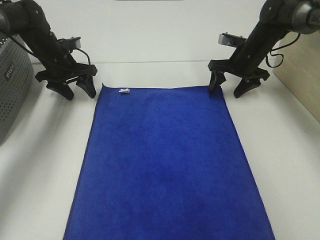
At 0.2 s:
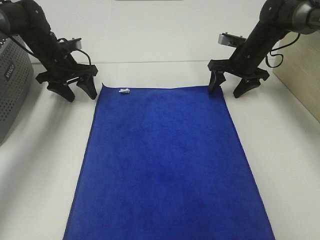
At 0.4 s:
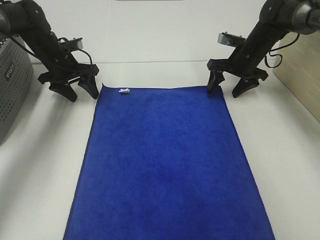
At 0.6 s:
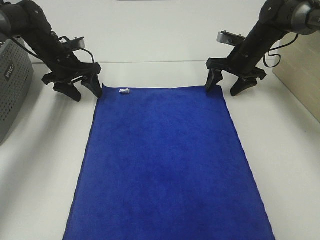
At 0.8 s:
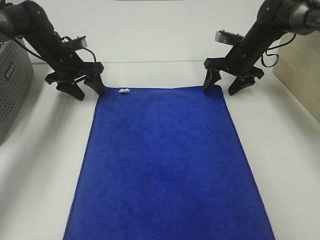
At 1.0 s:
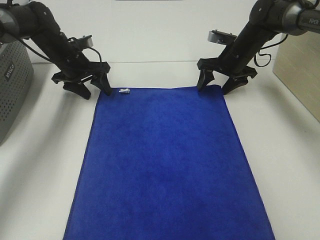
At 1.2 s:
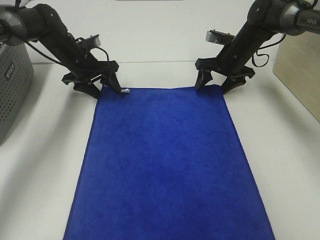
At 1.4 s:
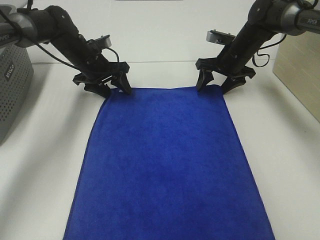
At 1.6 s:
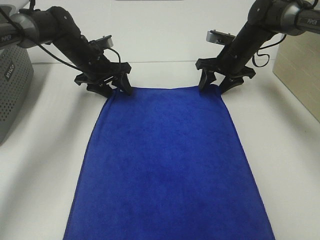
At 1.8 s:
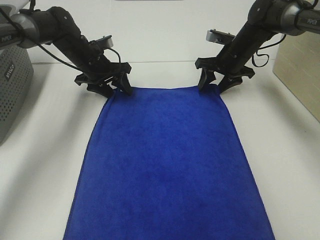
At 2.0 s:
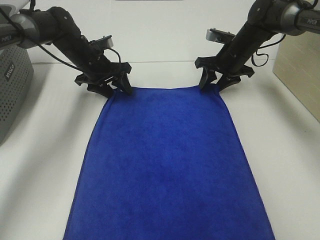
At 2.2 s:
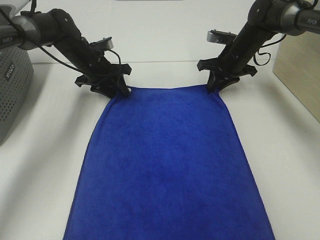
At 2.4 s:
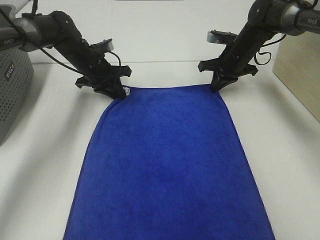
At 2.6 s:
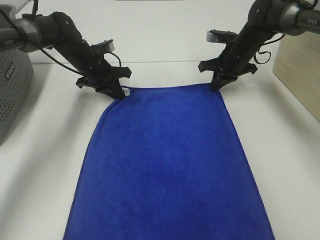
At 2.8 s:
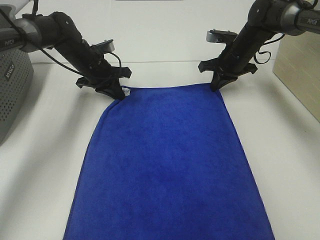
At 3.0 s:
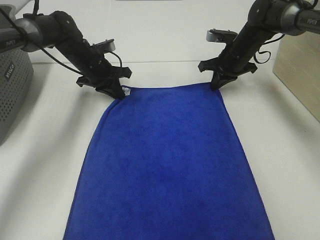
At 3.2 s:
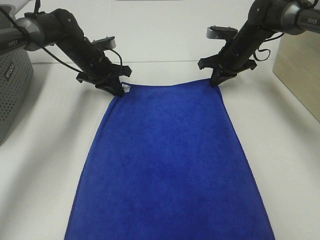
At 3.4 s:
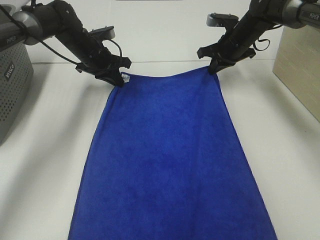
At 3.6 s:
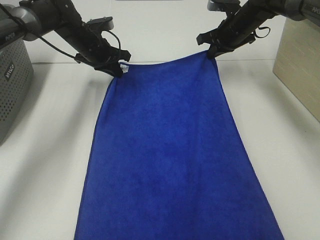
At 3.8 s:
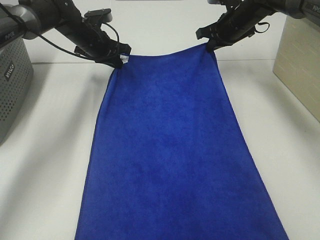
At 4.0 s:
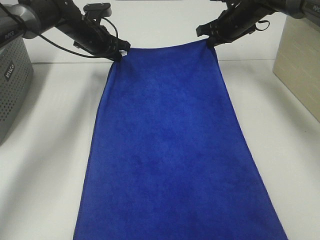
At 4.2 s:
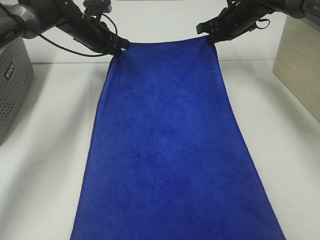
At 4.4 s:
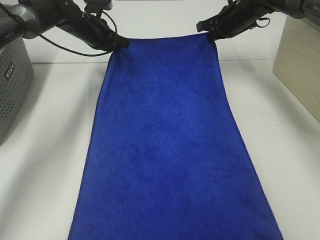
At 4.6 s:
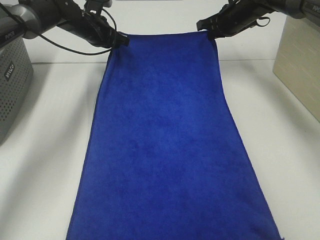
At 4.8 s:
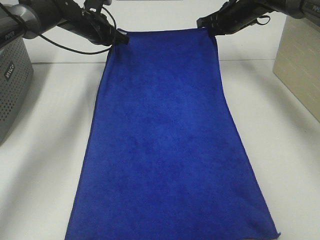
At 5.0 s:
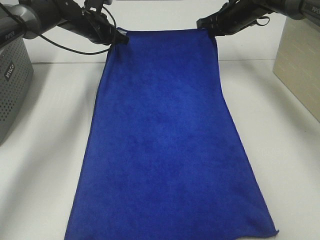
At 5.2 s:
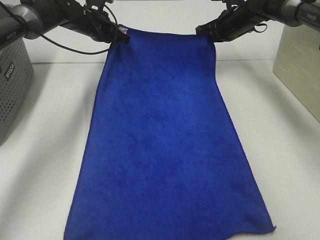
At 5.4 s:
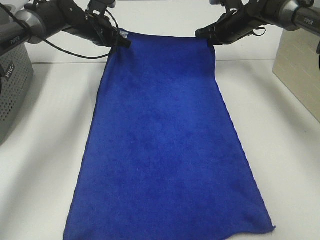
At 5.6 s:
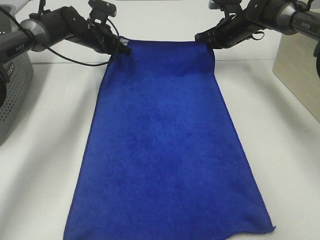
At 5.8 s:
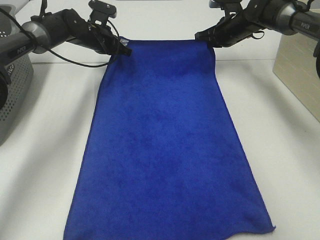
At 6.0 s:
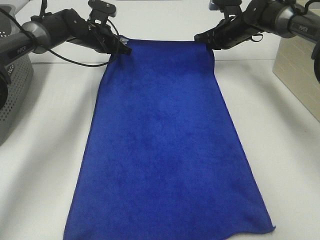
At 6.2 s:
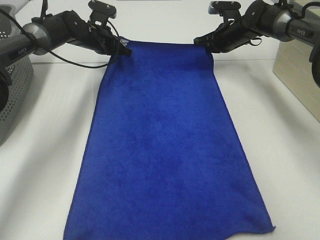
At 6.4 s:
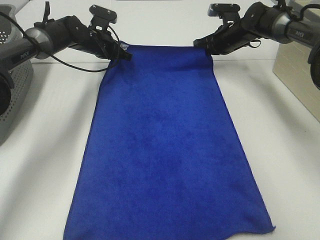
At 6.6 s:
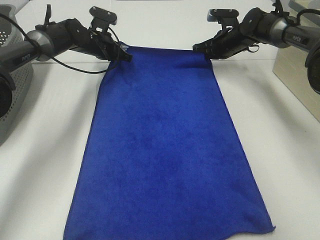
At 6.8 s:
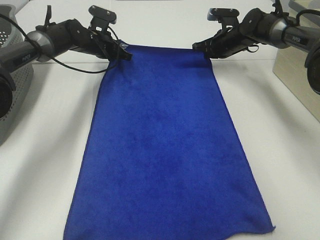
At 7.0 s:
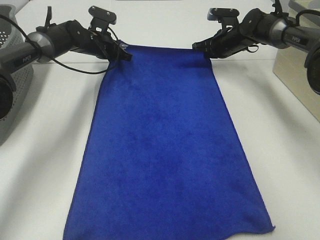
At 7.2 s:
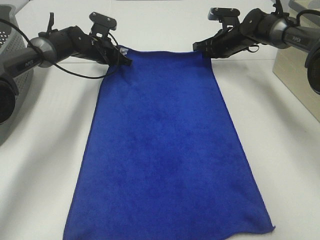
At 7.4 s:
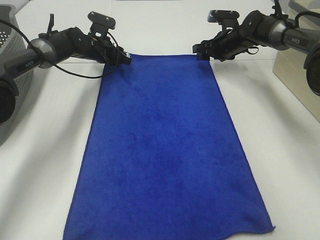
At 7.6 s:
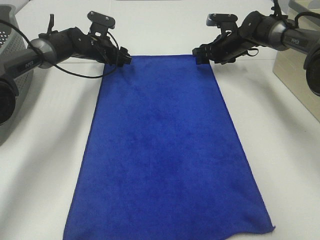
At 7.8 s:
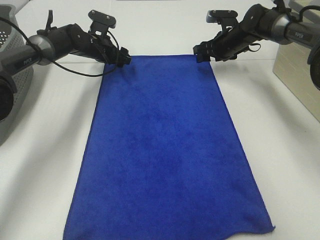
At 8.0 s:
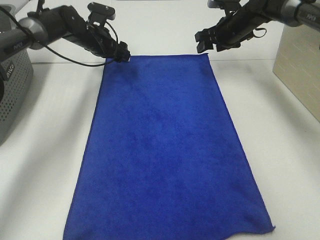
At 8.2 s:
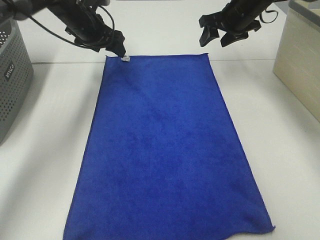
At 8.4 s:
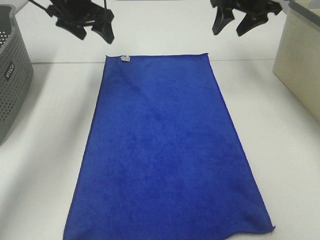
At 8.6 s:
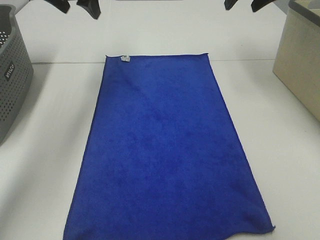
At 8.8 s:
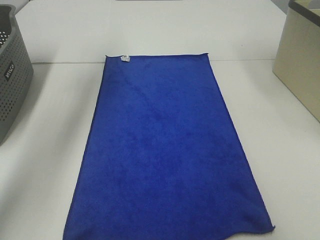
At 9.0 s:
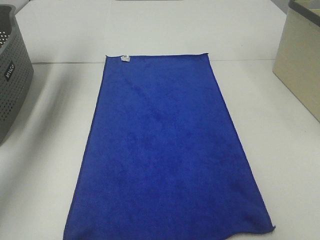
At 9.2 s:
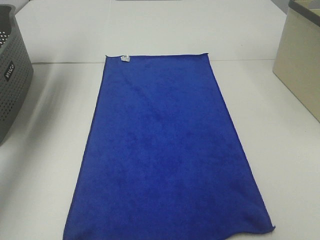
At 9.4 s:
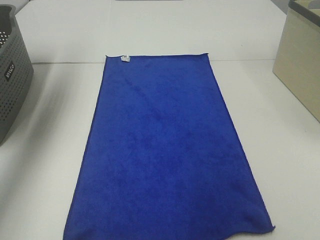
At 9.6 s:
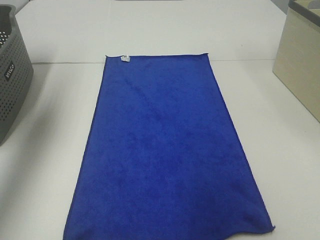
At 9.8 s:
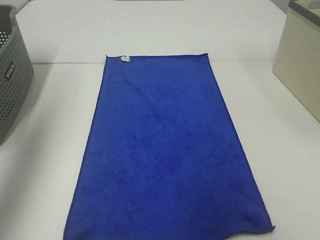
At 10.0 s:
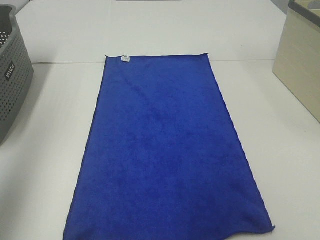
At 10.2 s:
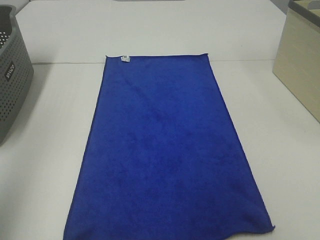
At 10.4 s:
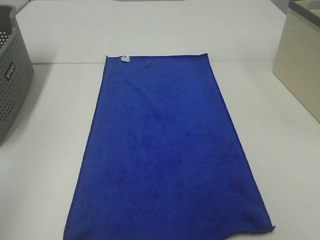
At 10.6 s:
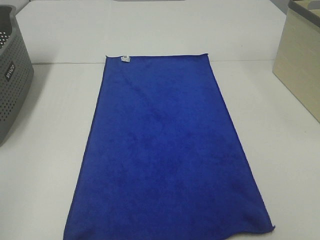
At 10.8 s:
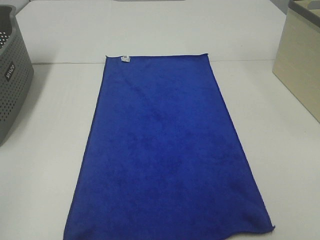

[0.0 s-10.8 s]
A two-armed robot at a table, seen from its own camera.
Task of the whole recording: Remove the towel and place it.
0.0 to 1.6 s: The left gripper moves to the right, roughly 5 cm.
1.6 to 3.0 s: The right gripper closes its fingers; the left gripper closes.
3.0 to 4.6 s: The right gripper moves upward, approximately 5 cm, while the left gripper heads upward and forward, covering about 10 cm.
4.6 to 6.2 s: The right gripper goes approximately 5 cm downward.
6.2 to 7.8 s: The left gripper opens. Meanwhile the right gripper opens up.
7.8 to 9.2 s: The right gripper is displaced upward and backward by about 35 cm; the left gripper travels upward, to the left and backward by about 35 cm.
9.2 to 10.8 s: The left gripper goes approximately 40 cm backward.

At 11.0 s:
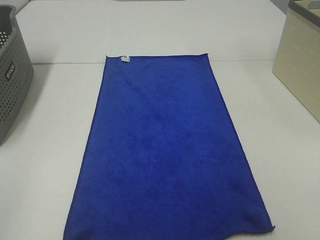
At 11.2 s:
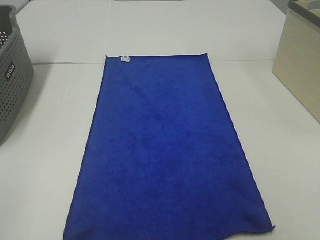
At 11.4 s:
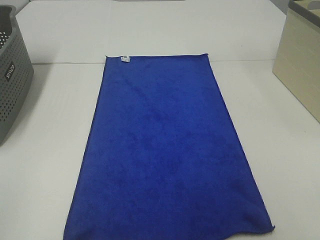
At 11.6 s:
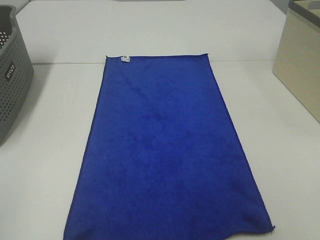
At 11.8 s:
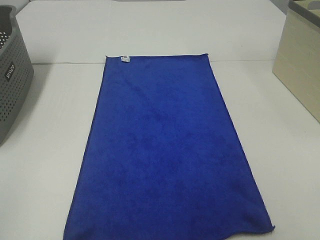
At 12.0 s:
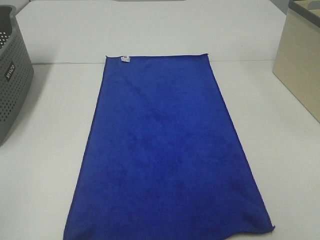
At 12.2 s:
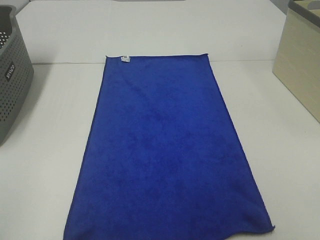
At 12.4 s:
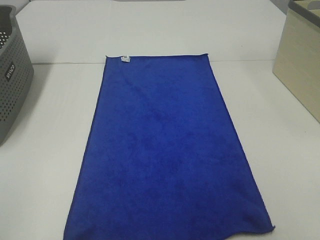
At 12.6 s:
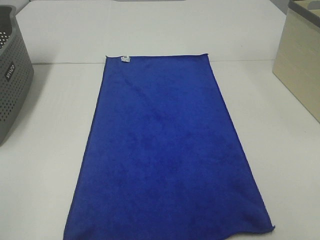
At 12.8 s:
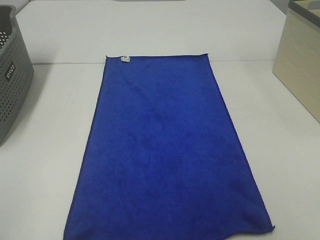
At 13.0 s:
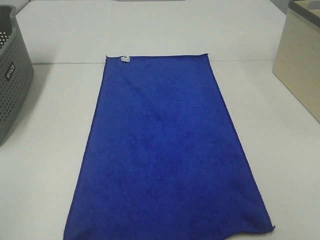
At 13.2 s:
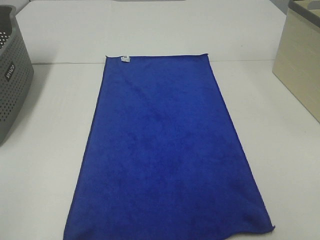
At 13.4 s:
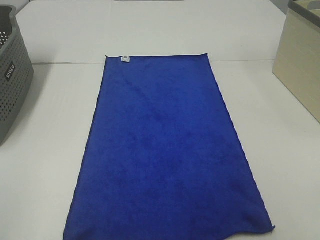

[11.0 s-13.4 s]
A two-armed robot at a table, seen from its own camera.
Task of the whole recording: Remove the towel and place it.
12.2 to 13.4 s: Neither gripper changes place.

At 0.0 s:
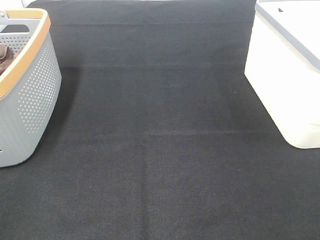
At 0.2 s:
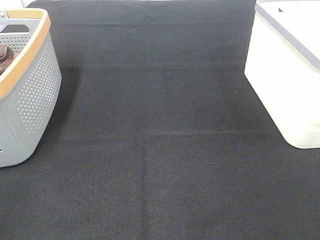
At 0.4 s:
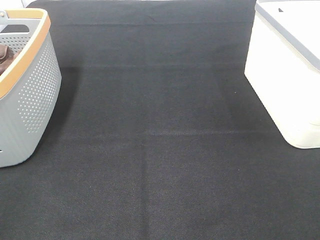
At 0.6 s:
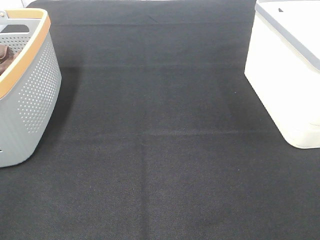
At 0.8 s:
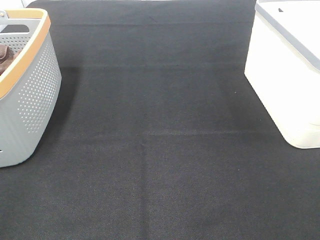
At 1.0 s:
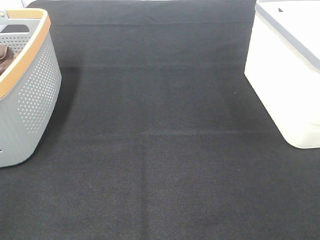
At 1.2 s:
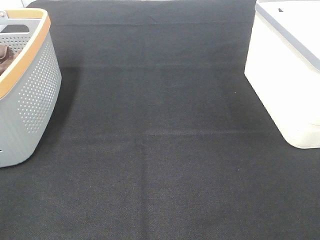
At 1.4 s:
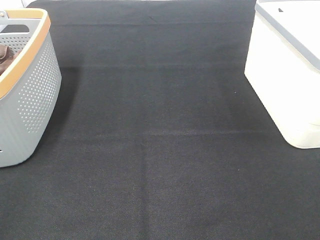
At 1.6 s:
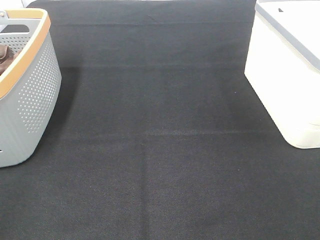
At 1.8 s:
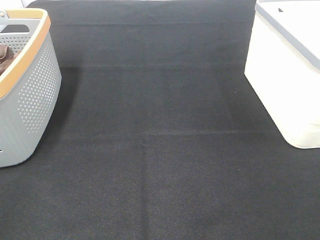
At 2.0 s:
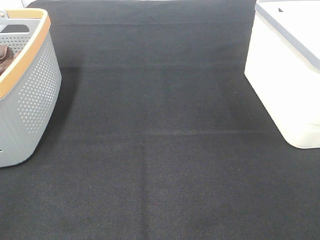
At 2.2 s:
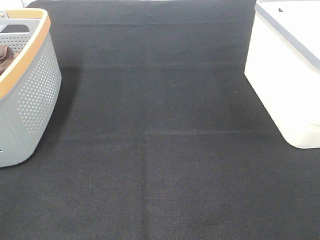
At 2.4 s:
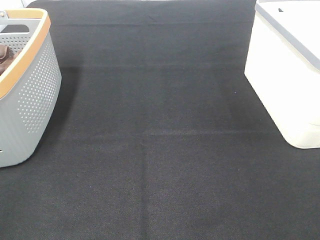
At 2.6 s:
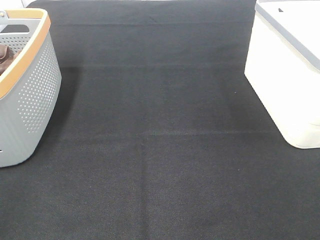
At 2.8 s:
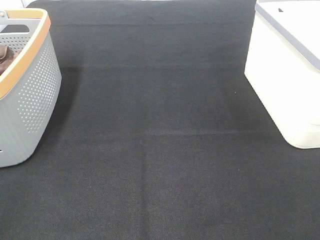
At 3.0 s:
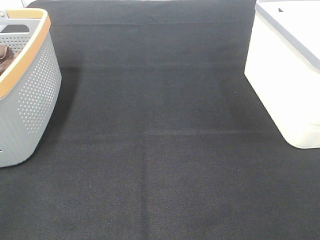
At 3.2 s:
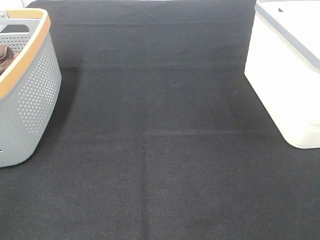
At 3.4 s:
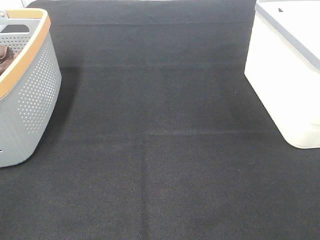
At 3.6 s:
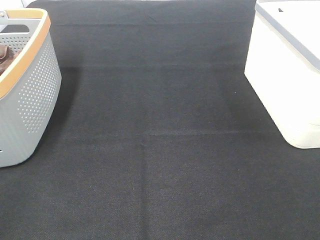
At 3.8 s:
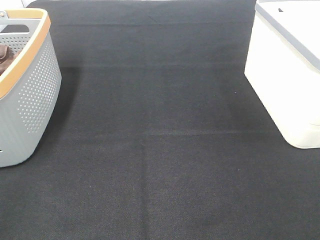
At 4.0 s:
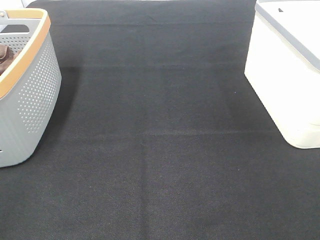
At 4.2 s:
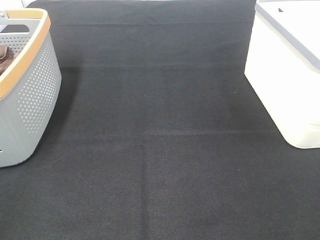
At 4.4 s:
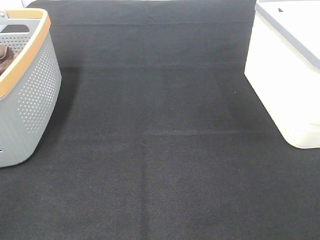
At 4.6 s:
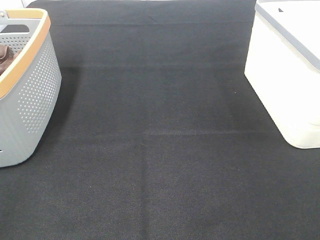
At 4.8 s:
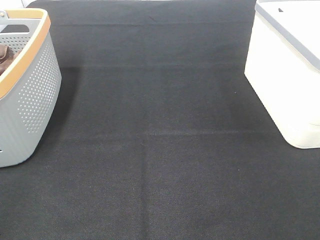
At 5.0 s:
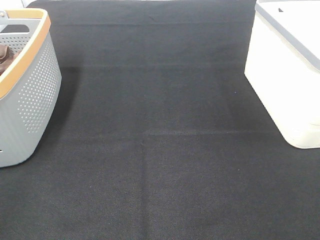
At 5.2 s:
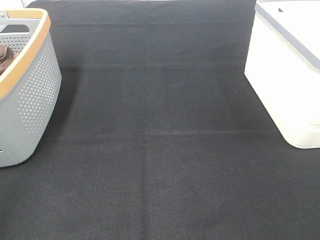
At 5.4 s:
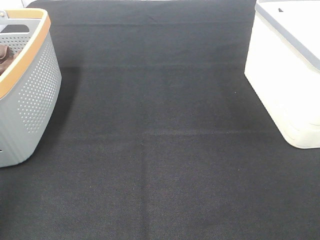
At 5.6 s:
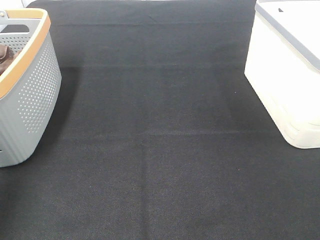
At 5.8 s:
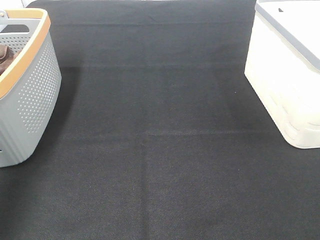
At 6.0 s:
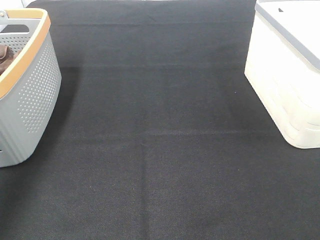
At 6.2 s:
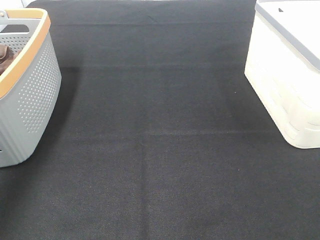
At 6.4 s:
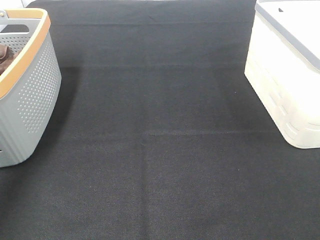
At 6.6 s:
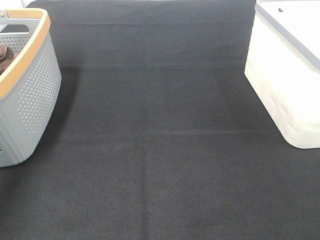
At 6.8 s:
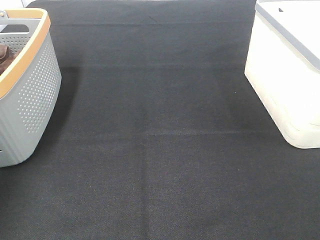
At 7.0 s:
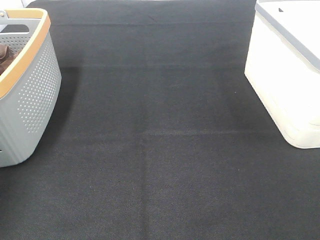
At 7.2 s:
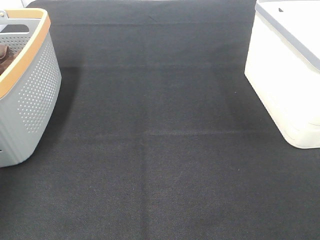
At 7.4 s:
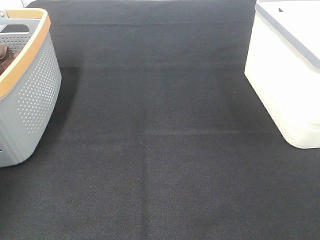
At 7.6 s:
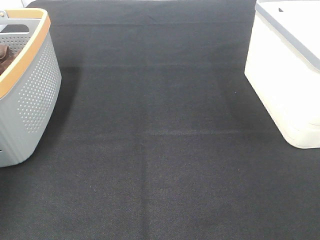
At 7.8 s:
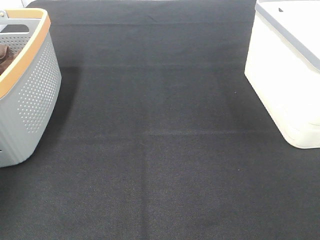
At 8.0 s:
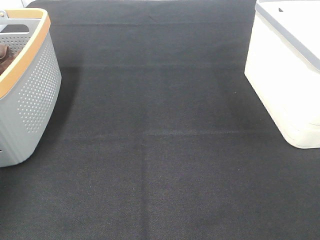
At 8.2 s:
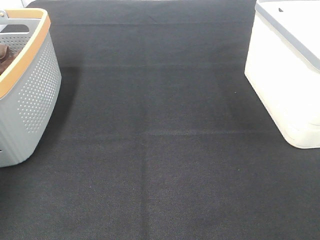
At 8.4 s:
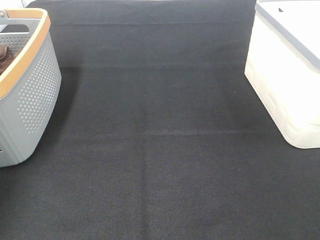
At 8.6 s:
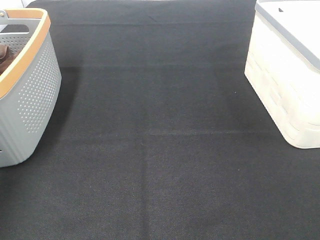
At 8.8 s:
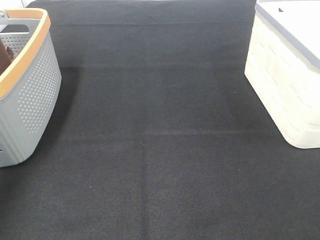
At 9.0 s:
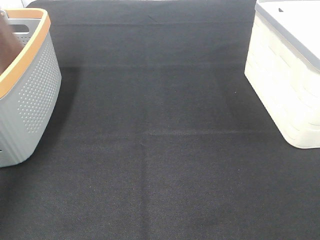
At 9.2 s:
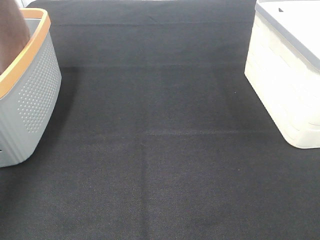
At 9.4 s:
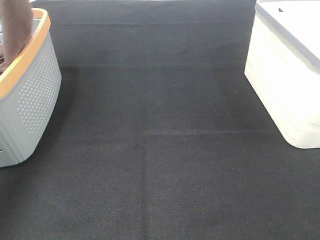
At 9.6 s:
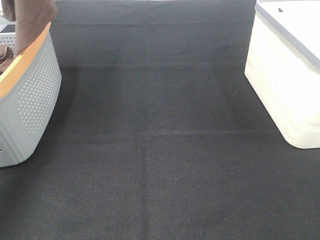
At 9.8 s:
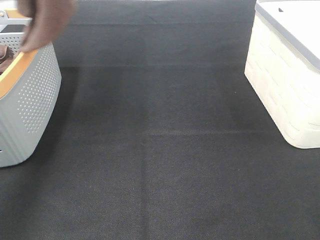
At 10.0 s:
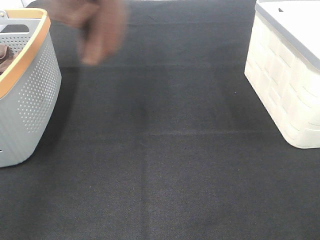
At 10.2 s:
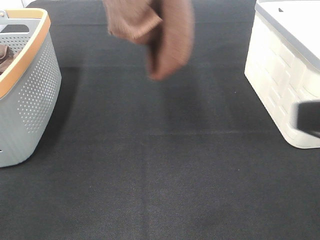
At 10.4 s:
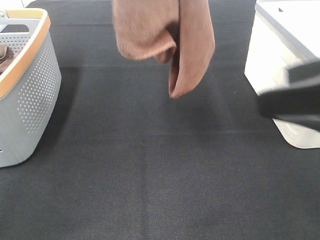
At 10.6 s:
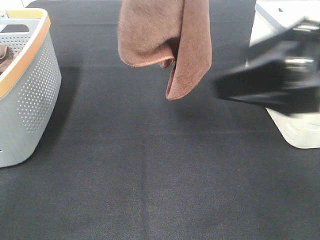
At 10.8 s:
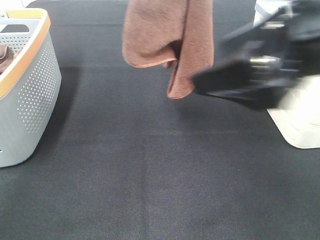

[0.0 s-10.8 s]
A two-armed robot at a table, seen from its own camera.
Task of the whole recording: Remove the towel and place it.
0.0 to 4.6 s: The two grippers keep their place.
4.6 to 6.2 s: The left gripper moves forward, roughly 35 cm.
7.8 to 9.2 s: The left gripper is displaced upward by some 30 cm.
9.2 to 10.8 s: The left gripper moves to the right, approximately 25 cm. The right gripper moves forward and to the left, approximately 25 cm.
